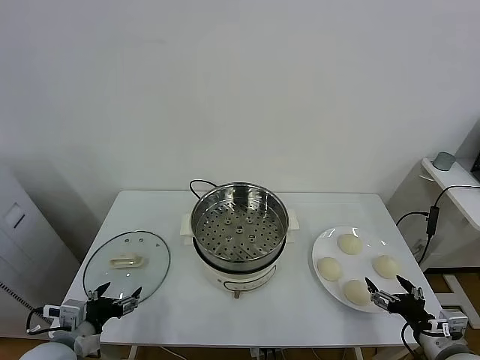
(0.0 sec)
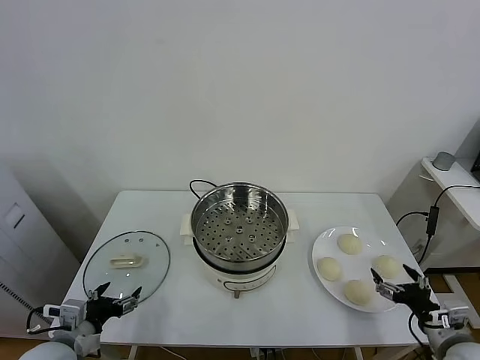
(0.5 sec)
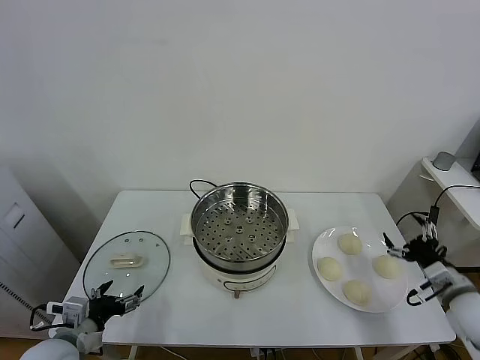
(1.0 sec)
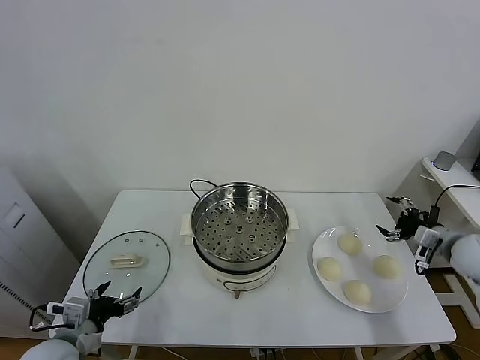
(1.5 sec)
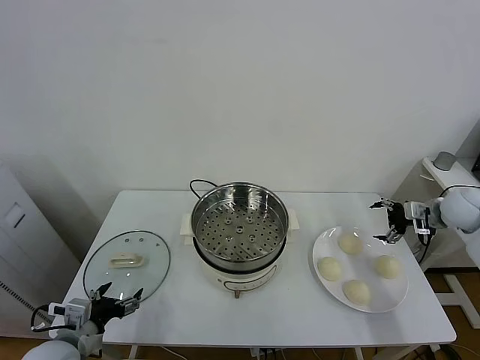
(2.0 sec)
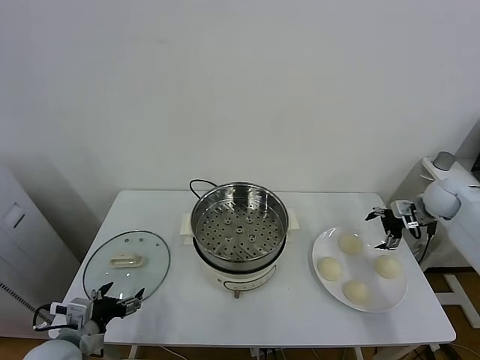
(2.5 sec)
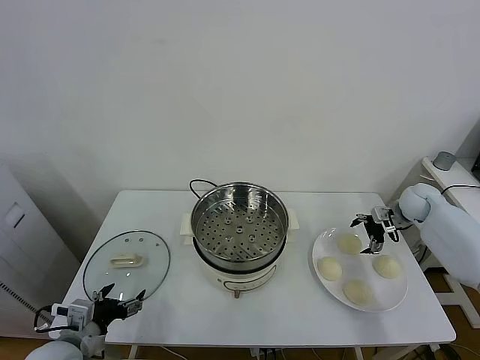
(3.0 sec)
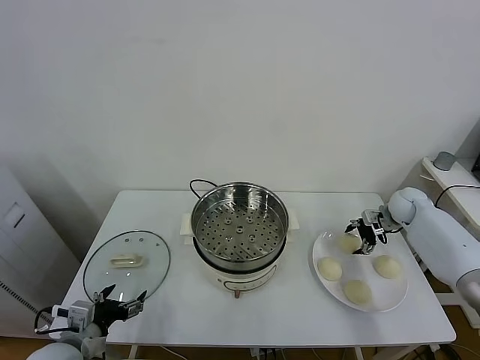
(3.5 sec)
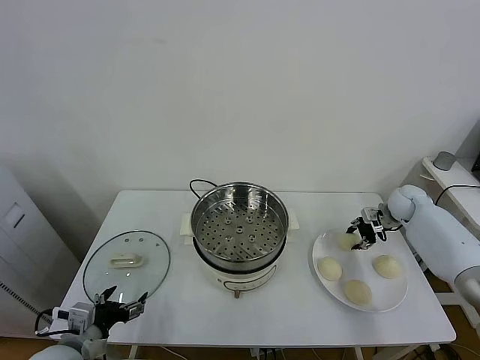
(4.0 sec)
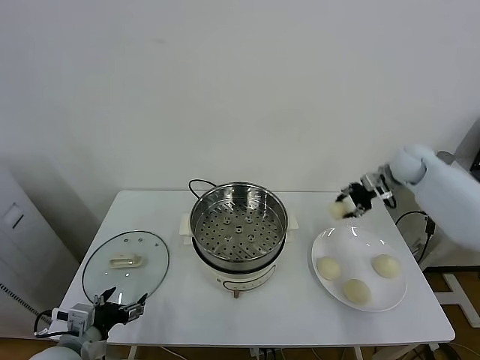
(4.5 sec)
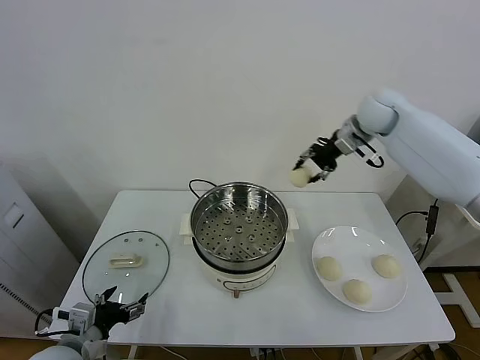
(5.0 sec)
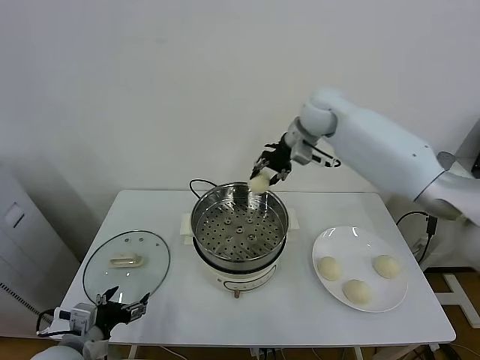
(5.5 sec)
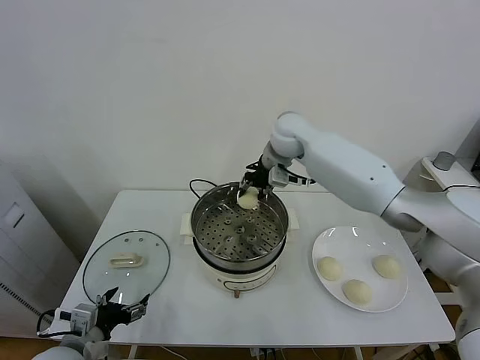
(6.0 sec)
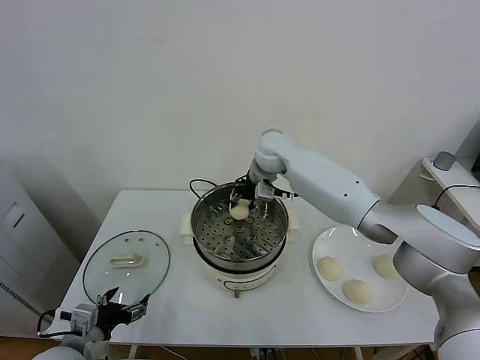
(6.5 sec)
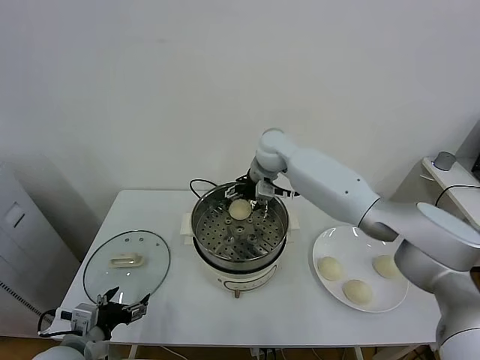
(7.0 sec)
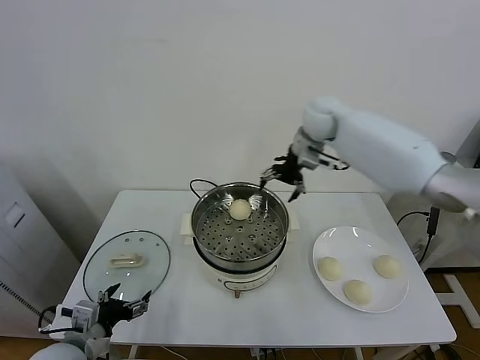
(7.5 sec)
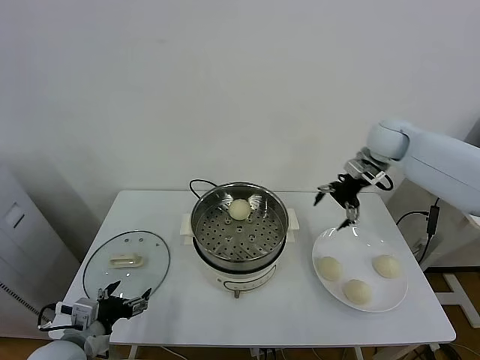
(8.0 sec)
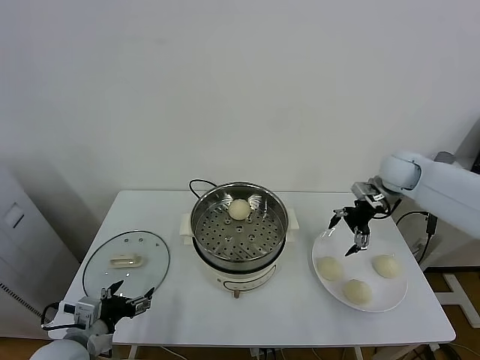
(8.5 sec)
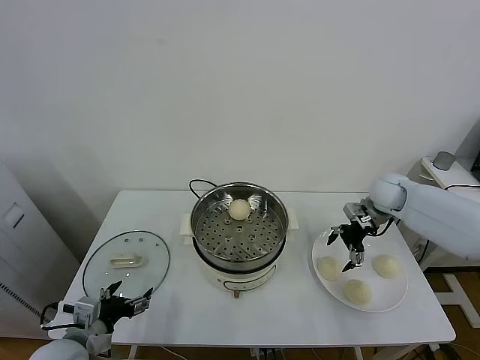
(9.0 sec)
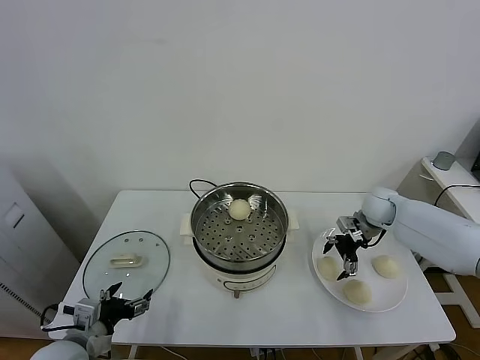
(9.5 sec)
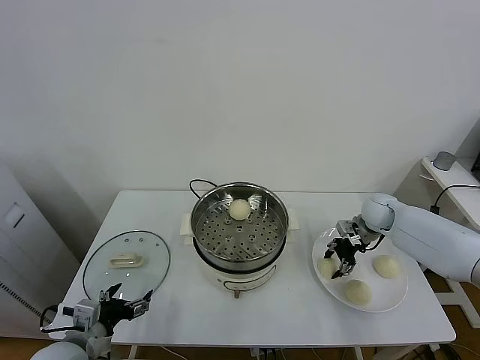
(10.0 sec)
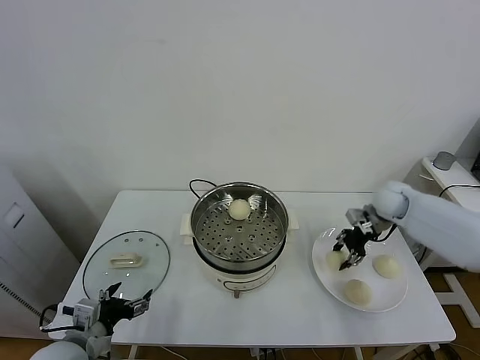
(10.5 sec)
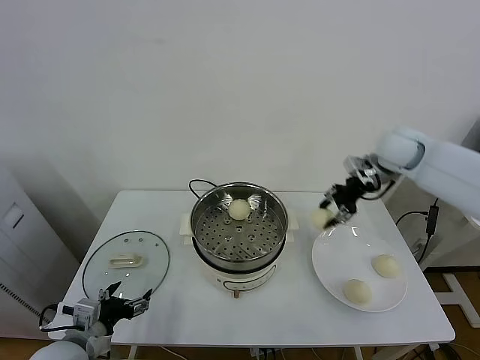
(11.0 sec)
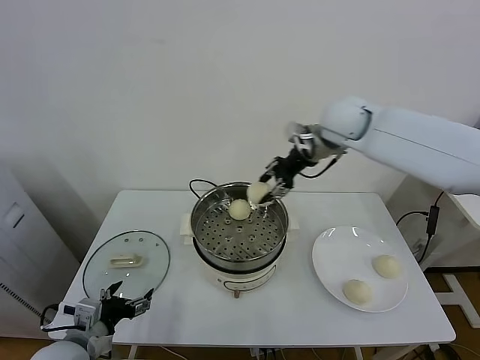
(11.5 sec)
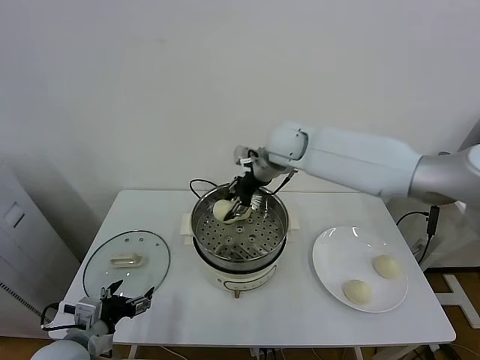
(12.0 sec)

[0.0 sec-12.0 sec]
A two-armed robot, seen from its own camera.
Task of the whole recording: take steamed baozi put them in steamer.
Step, 0.0 sec to 3.5 sec: Grasp the baozi in the plate with right gripper.
Step, 4.0 sec to 7.0 sec: Place the baozi on the steamer with right gripper.
Step, 7.5 sec to 10.0 sec: Grasp the baozi in the plate with right gripper.
2.0 sec to 4.0 sec: The right gripper moves forward, downward and to the left, about 15 cm, and closes its fingers.
4.0 sec to 6.0 sec: The right gripper shifts approximately 40 cm to the left and upward.
6.0 sec to 8.0 sec: The right gripper heads to the right, covering roughly 25 cm, and opens its fingers.
8.0 sec to 10.0 sec: The right gripper moves downward, approximately 20 cm, and closes its fingers.
10.0 sec to 12.0 sec: The right gripper moves to the left and upward, some 35 cm.

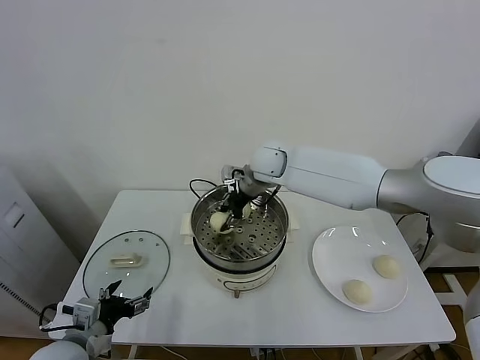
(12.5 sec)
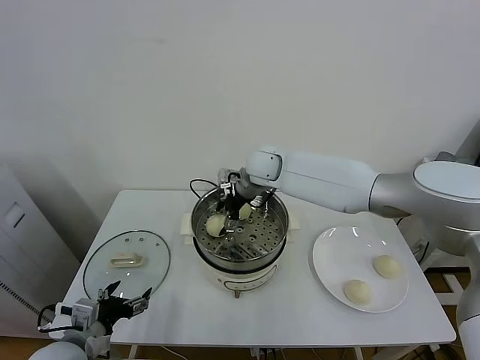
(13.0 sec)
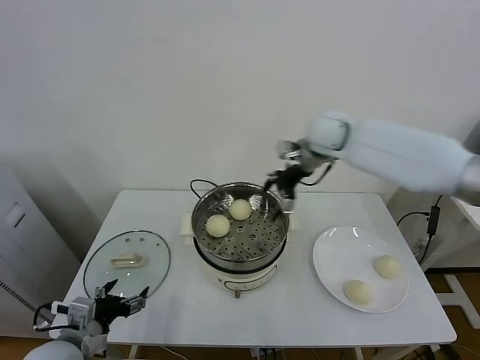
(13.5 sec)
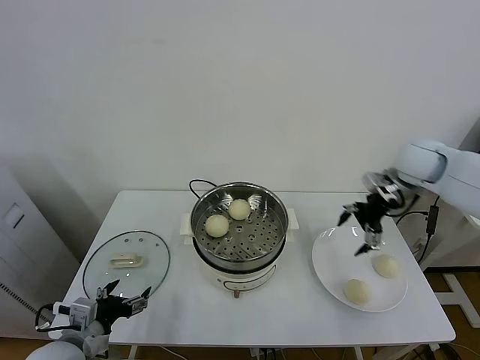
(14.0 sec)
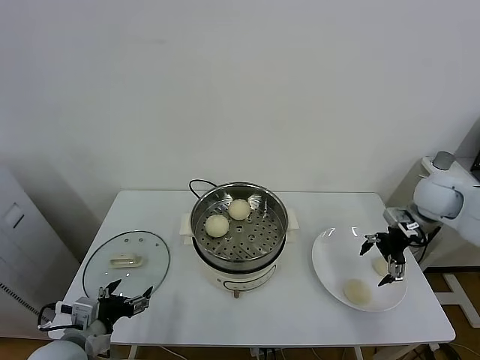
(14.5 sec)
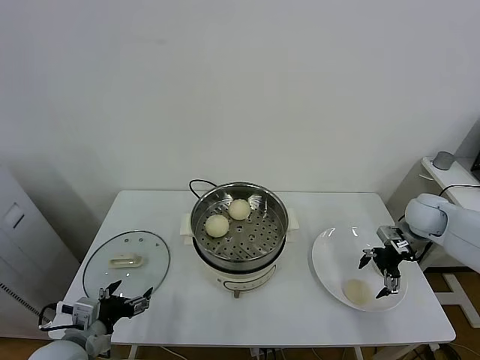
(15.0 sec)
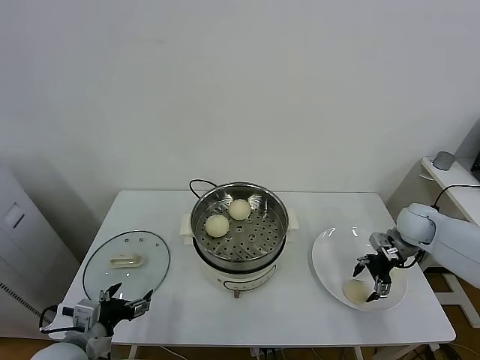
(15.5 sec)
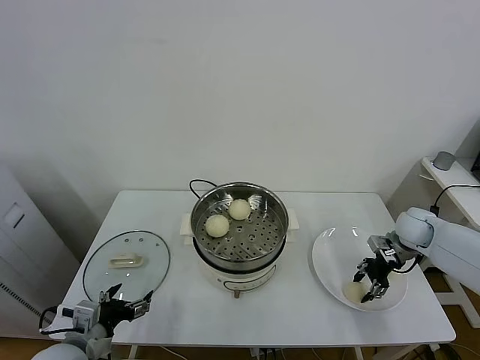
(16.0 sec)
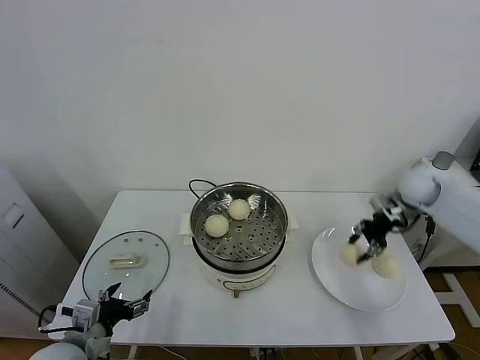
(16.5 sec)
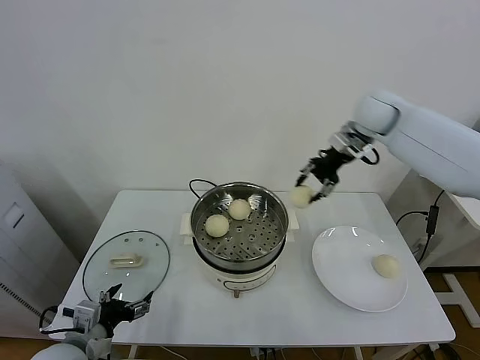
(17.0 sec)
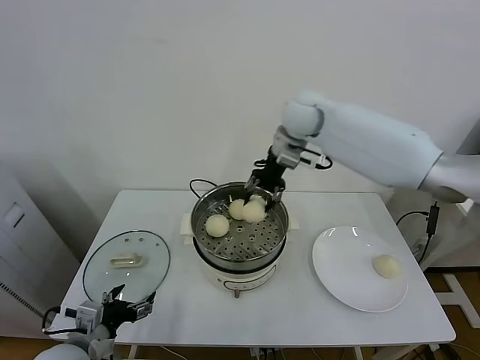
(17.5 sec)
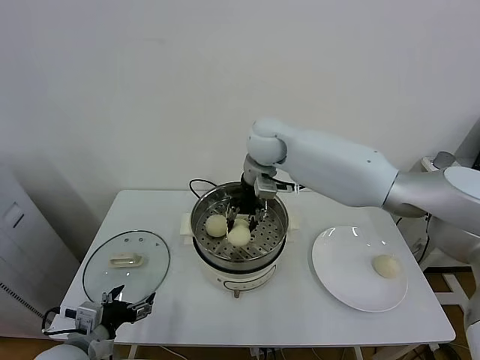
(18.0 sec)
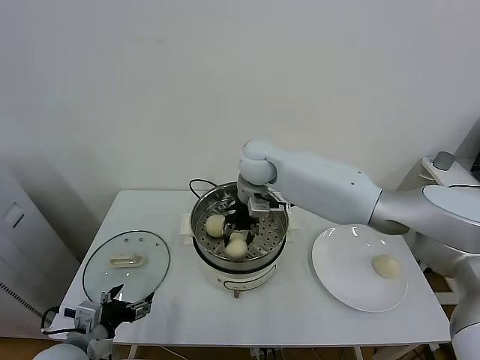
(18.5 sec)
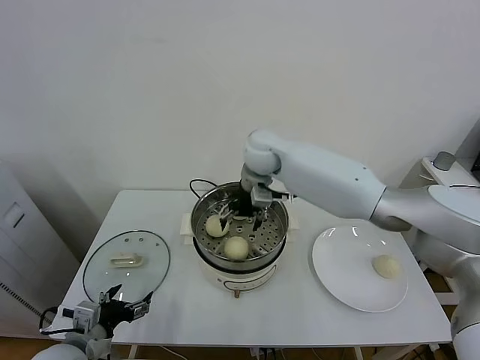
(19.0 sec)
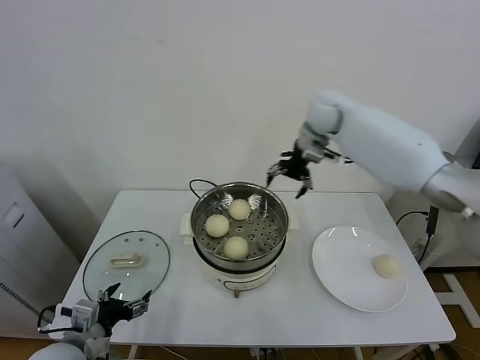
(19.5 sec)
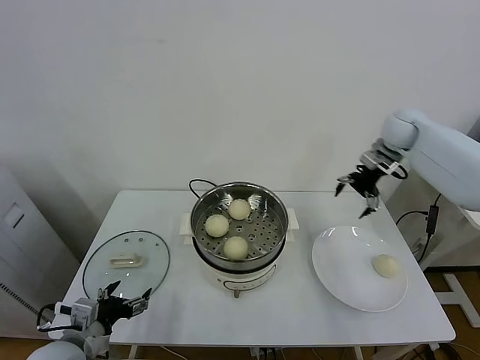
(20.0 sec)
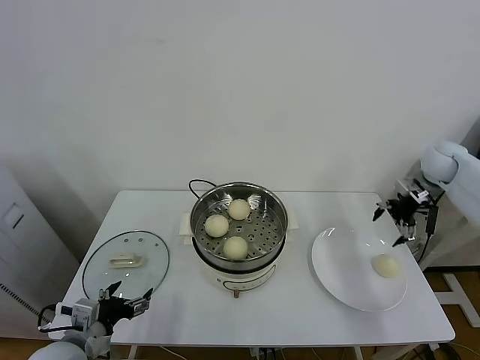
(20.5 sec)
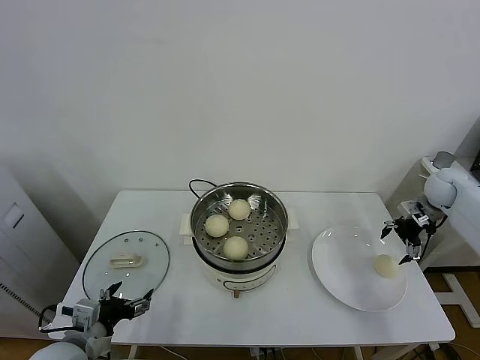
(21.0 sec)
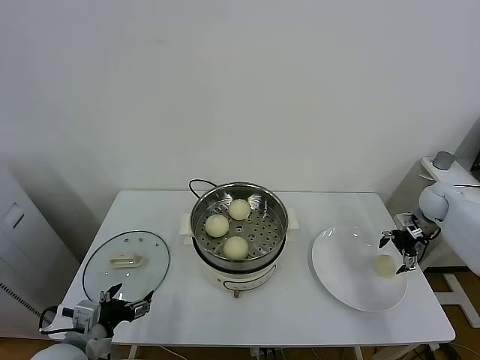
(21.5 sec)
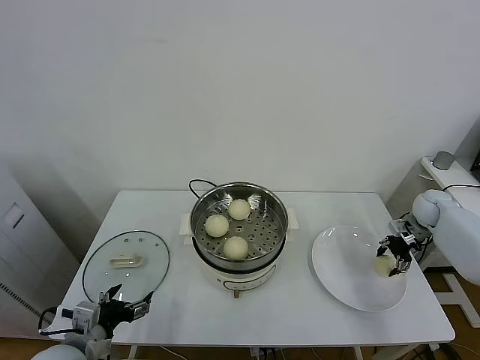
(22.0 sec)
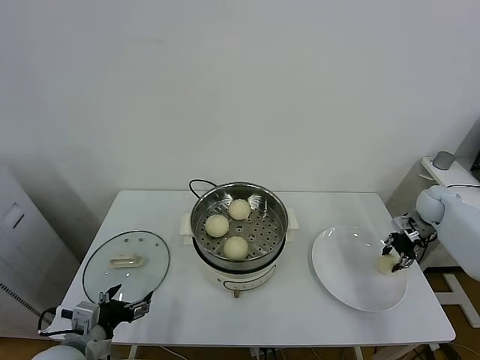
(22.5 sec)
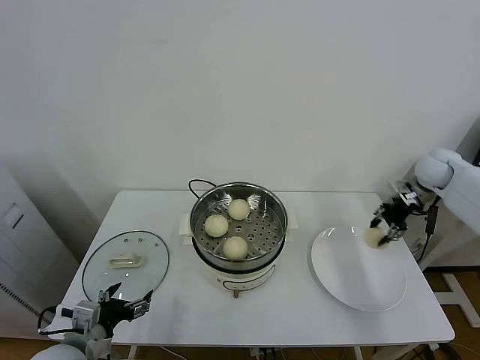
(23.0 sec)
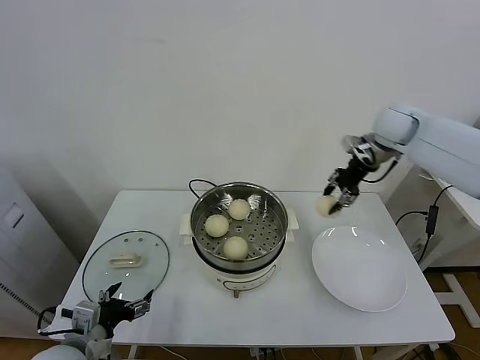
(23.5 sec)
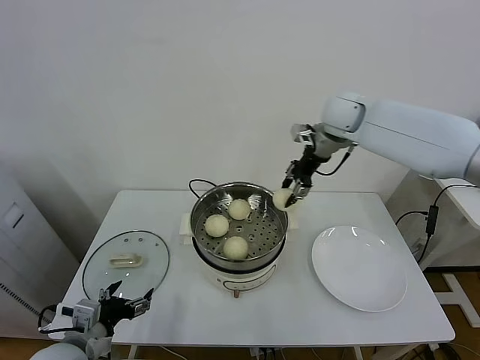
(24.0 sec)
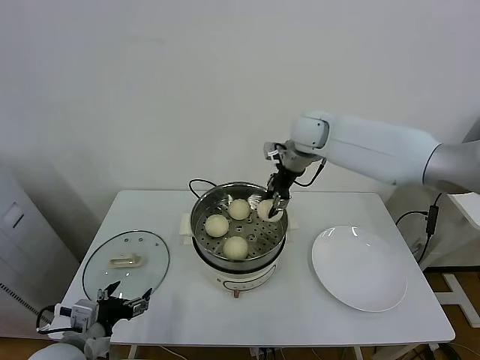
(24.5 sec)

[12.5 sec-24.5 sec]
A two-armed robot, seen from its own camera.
Task of the whole recording: take steamed baozi put them in steamer.
Step, 13.5 sec to 16.0 sec: Grasp the baozi in the plate with right gripper.
Step, 16.5 sec to 18.5 sec: Place the baozi on the steamer with right gripper.
Step, 19.0 sec to 22.0 sec: Grasp the baozi in the plate with right gripper.
12.5 sec to 14.5 sec: The right gripper moves to the right, about 35 cm, and opens.
14.5 sec to 16.5 sec: The right gripper is displaced forward by some 5 cm, goes downward and returns, about 10 cm each way, and closes up.
16.5 sec to 18.5 sec: The right gripper heads to the left, covering about 40 cm.
18.5 sec to 20.5 sec: The right gripper moves to the right, about 40 cm, and opens its fingers.
20.5 sec to 22.5 sec: The right gripper travels downward by roughly 15 cm, and closes its fingers.
22.5 sec to 24.5 sec: The right gripper shifts about 40 cm to the left and upward.

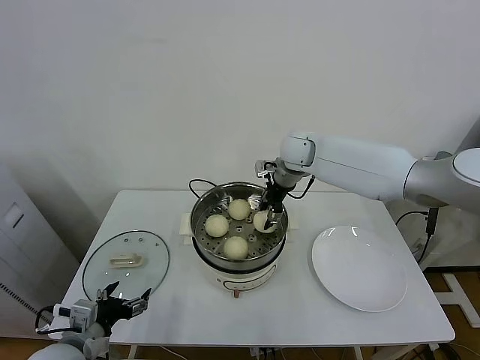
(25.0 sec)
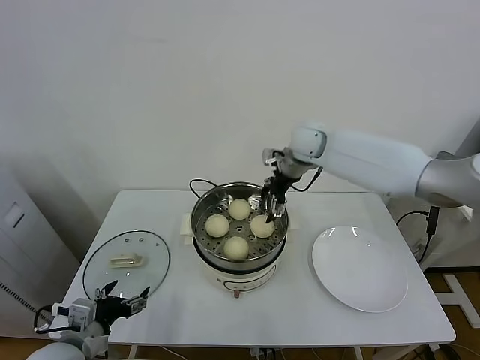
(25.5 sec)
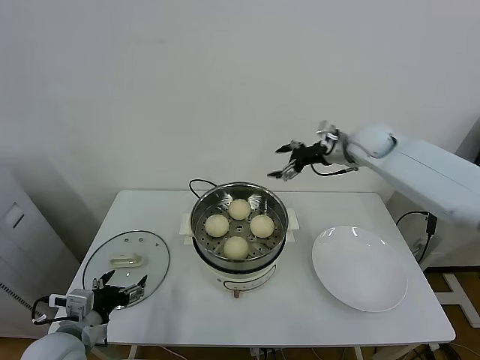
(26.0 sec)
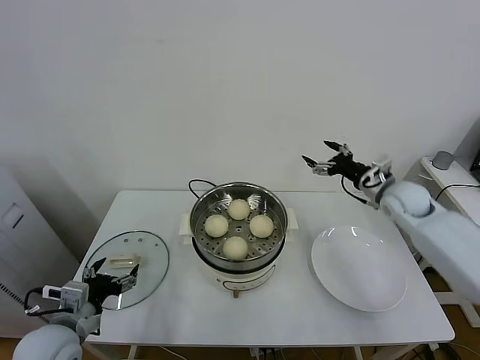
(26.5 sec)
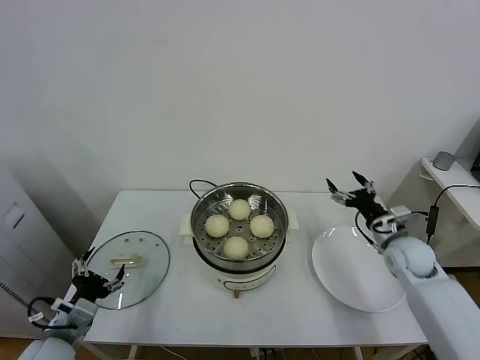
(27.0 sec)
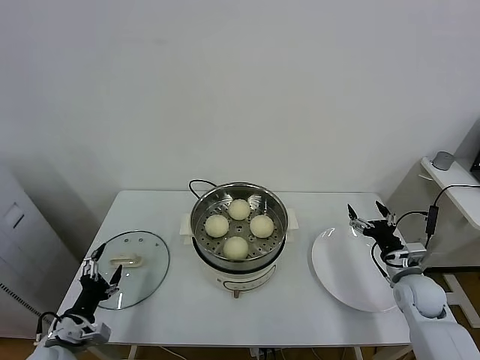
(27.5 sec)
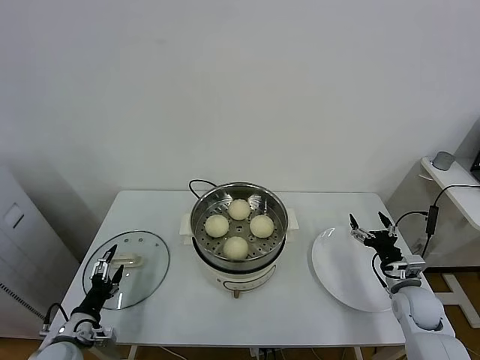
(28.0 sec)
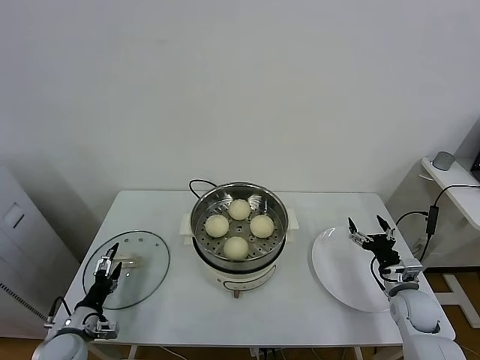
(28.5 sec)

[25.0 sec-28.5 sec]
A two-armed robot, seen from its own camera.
Task of the whole recording: take steamed baozi put them in steamer.
25.0 sec to 27.0 sec: The right gripper is displaced to the right, backward and downward by some 35 cm, and opens its fingers.
27.0 sec to 28.5 sec: The right gripper is displaced downward and backward by roughly 15 cm, while the left gripper is displaced downward by roughly 15 cm.
